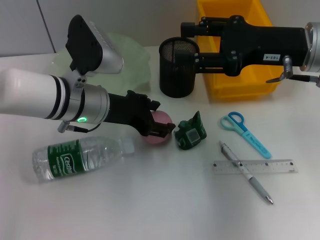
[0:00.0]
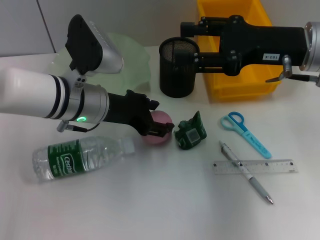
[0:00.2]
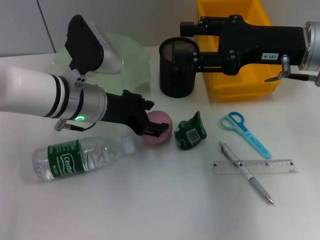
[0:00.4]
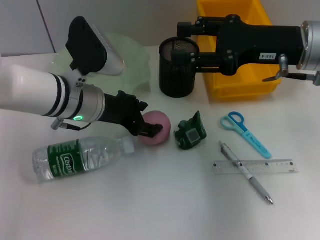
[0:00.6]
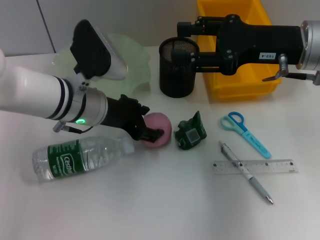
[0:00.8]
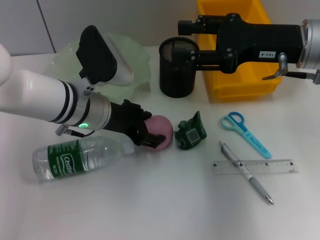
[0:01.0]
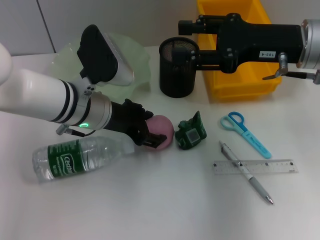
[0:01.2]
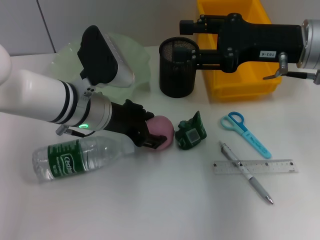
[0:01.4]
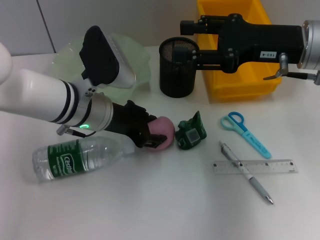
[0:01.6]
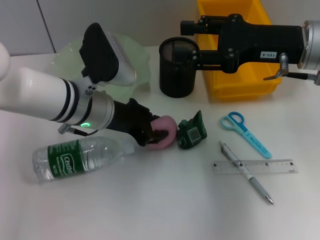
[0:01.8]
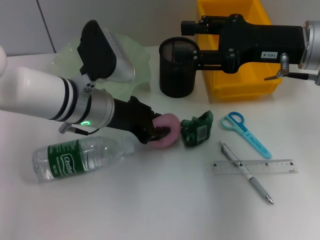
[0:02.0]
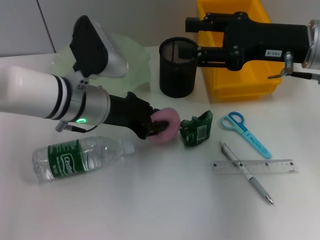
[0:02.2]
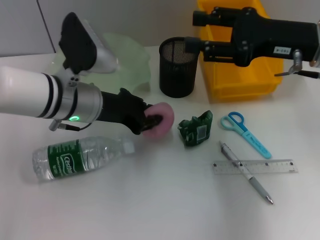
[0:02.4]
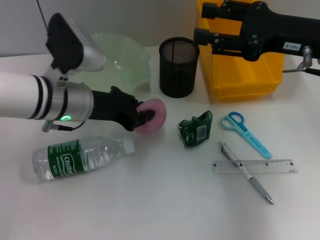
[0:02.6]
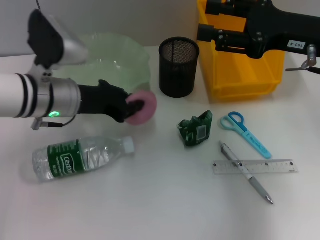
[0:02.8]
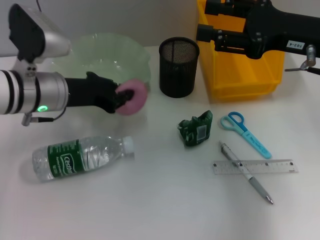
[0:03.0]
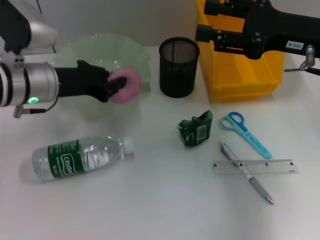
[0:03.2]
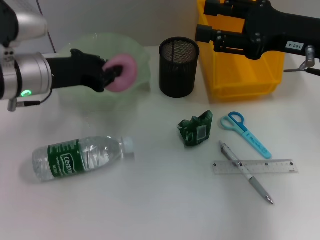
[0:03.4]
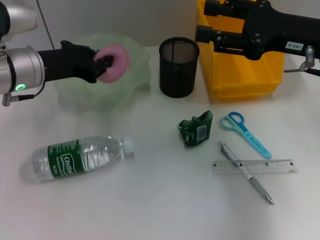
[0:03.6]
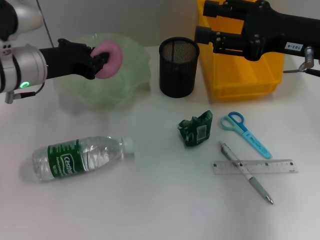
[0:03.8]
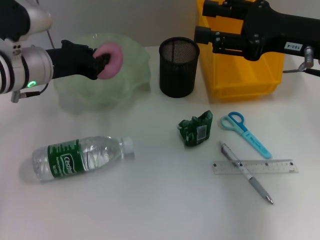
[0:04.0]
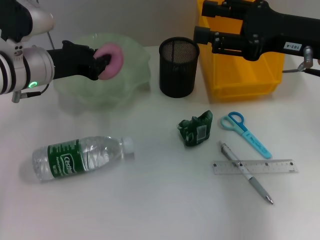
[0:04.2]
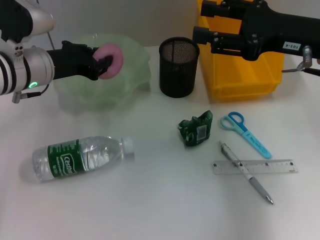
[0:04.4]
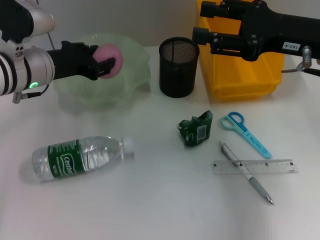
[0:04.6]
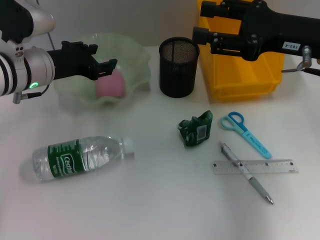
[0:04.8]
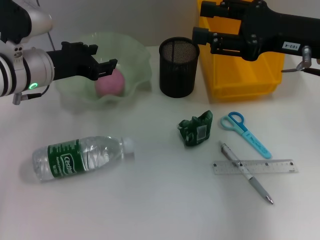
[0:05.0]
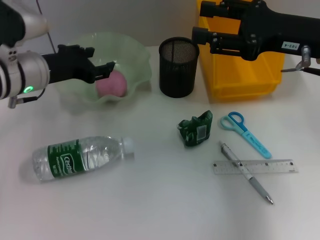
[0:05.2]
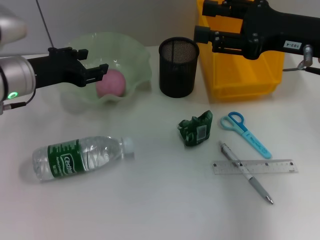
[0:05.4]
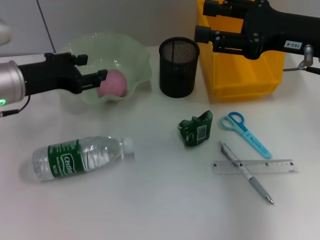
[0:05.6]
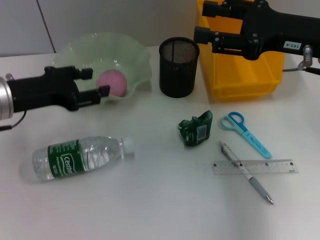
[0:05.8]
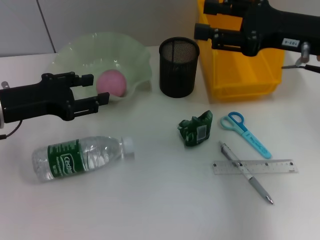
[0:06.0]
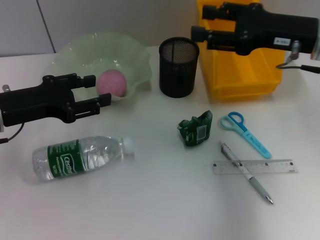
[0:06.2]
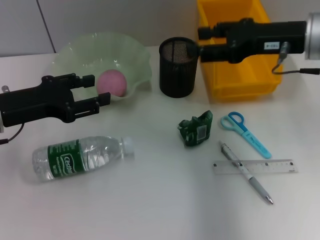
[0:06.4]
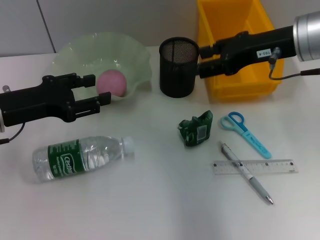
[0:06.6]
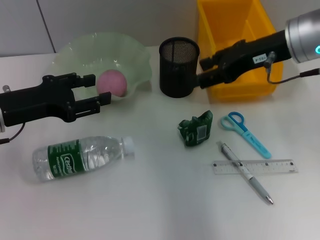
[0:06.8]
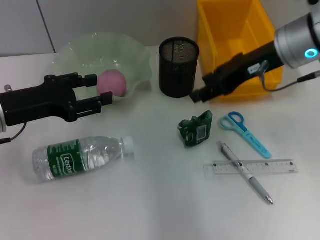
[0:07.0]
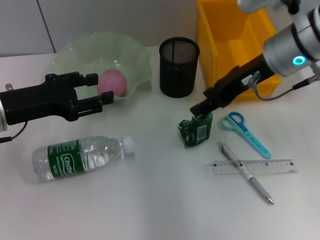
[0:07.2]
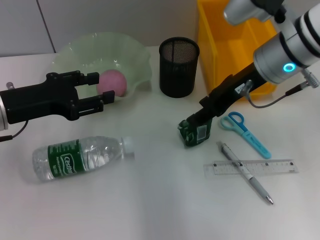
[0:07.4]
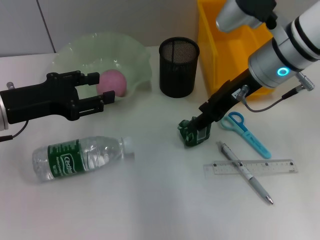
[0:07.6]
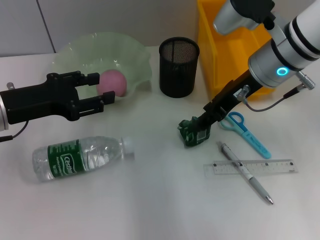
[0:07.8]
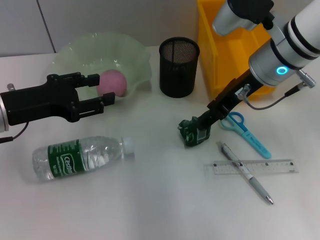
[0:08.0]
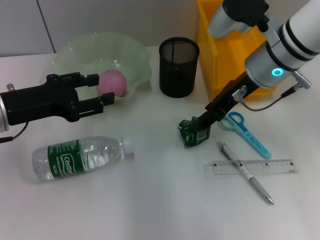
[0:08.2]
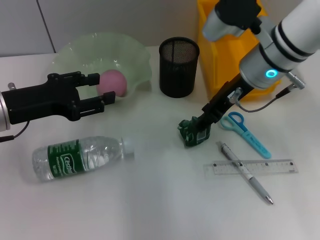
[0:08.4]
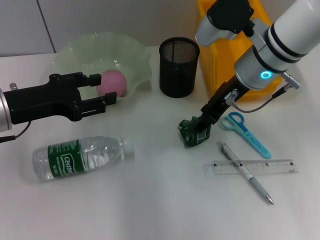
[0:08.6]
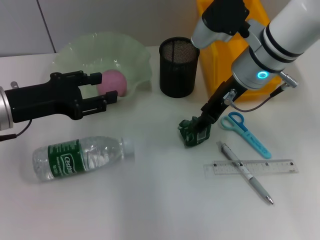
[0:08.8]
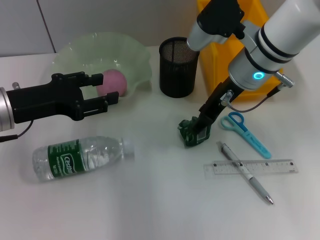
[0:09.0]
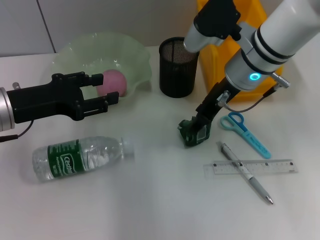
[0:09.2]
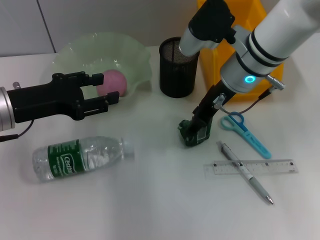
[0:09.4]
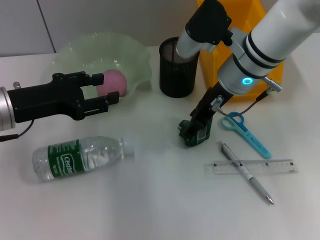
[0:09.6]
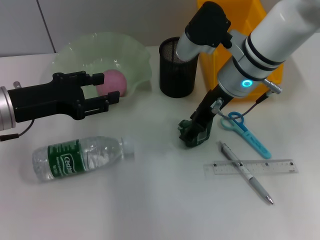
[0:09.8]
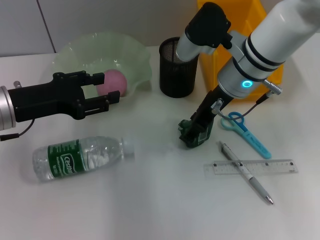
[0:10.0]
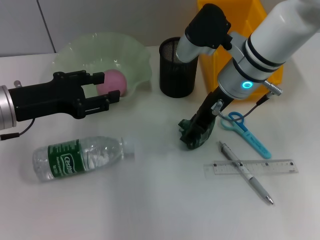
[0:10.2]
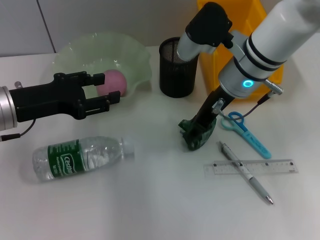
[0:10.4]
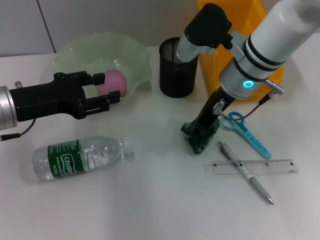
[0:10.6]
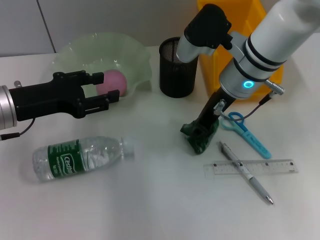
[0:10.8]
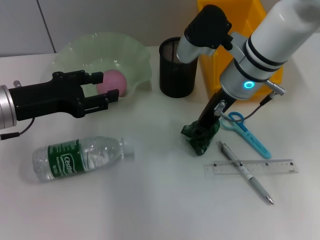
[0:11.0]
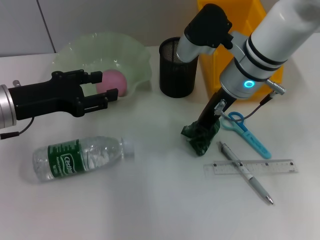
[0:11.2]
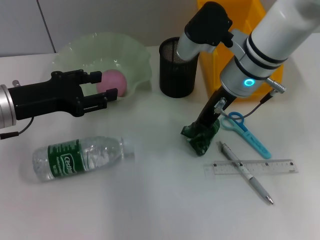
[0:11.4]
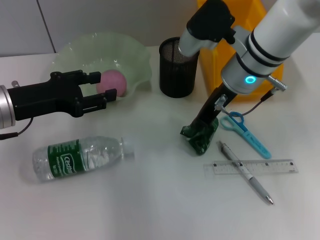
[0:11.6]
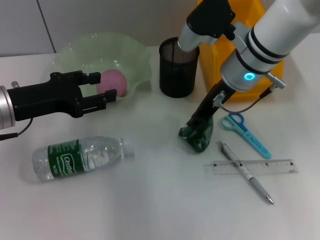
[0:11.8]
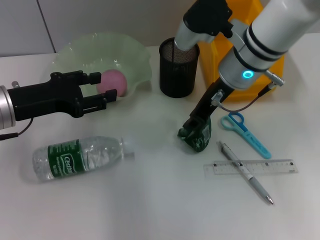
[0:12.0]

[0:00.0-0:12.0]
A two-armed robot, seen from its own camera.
Step, 0:02.0 to 0:05.0: Place the peach into the fruit bowl with the left hand.
0:00.0 to 0:01.6: There are only small adjustments of the grippers.
0:01.6 to 0:03.0: The left gripper goes approximately 5 cm to the left, and closes its fingers.
0:03.0 to 0:04.4: The grippers stay close to where they were, moving slightly.
0:04.4 to 0:06.0: The left gripper shifts approximately 10 cm backward and to the left, and opens its fingers.
0:06.0 to 0:07.6: The right gripper is displaced to the left by some 10 cm.
0:07.6 to 0:10.4: There are only small adjustments of the grippers.
0:10.4 to 0:12.0: The right gripper closes its fingers.

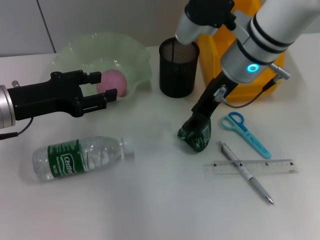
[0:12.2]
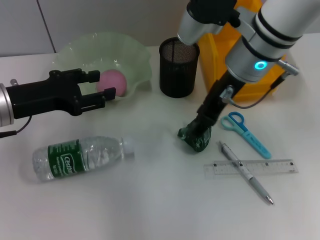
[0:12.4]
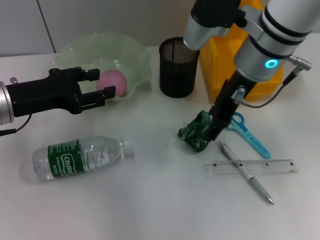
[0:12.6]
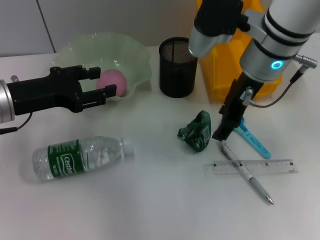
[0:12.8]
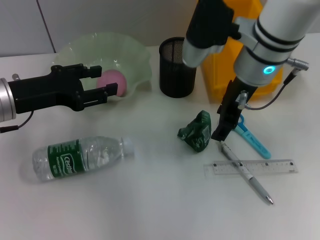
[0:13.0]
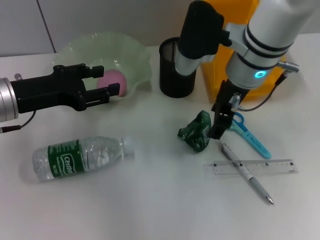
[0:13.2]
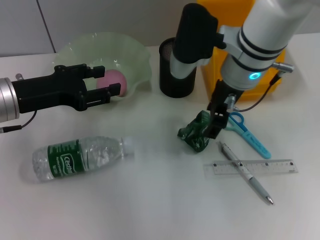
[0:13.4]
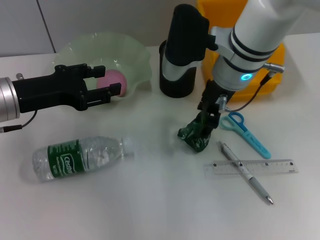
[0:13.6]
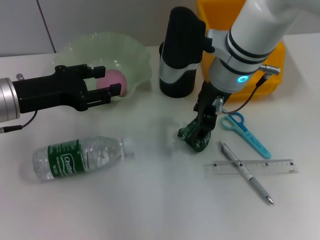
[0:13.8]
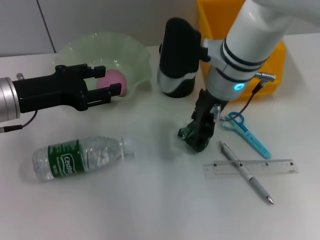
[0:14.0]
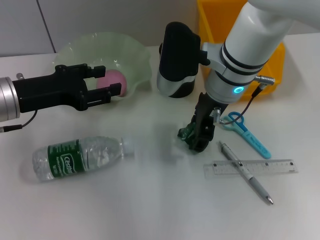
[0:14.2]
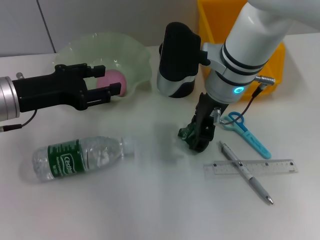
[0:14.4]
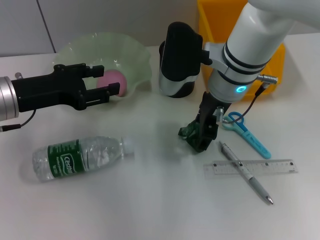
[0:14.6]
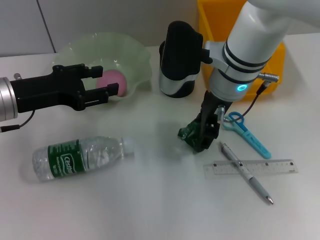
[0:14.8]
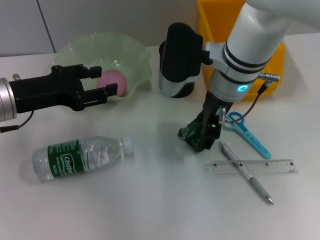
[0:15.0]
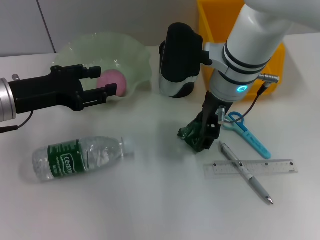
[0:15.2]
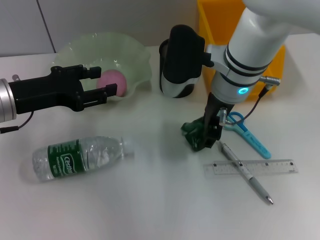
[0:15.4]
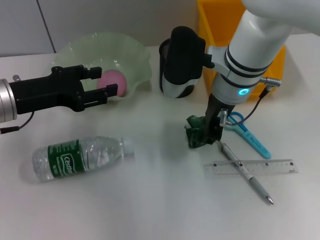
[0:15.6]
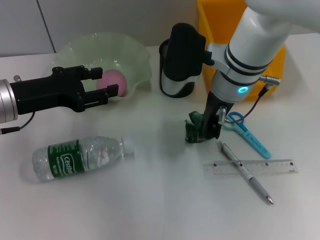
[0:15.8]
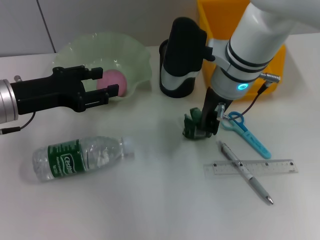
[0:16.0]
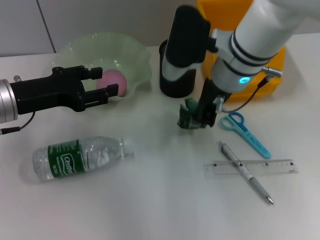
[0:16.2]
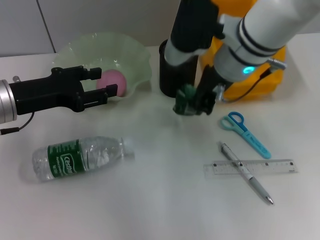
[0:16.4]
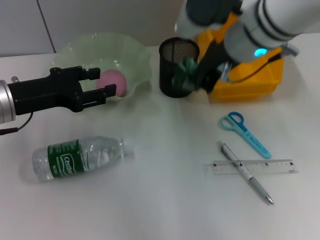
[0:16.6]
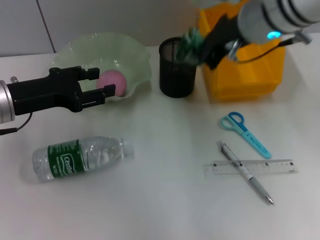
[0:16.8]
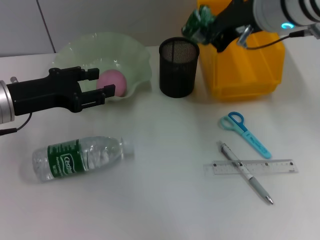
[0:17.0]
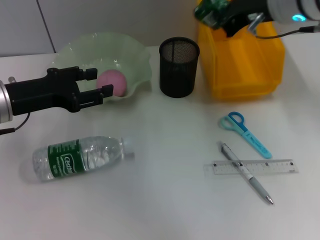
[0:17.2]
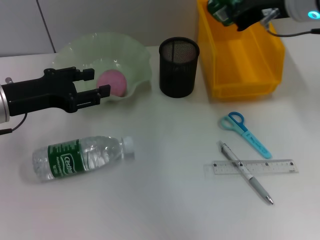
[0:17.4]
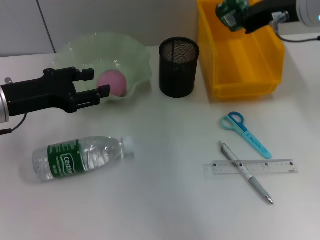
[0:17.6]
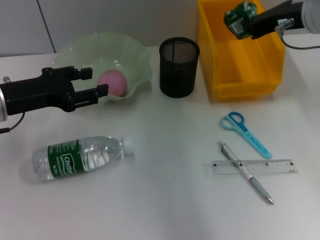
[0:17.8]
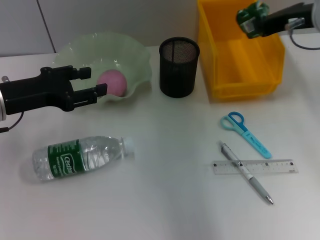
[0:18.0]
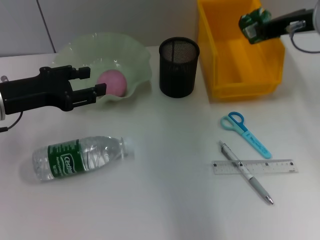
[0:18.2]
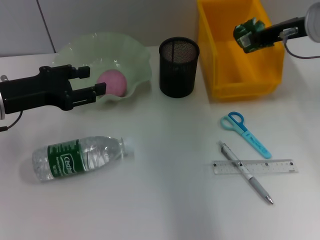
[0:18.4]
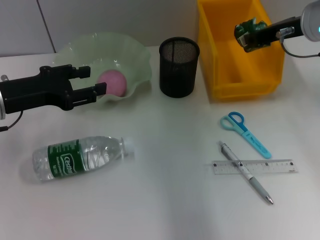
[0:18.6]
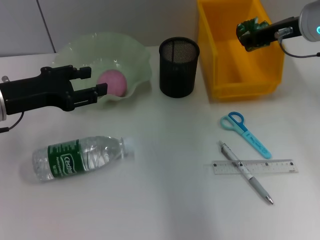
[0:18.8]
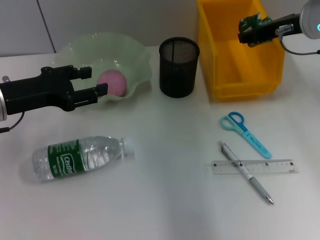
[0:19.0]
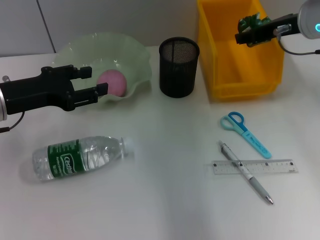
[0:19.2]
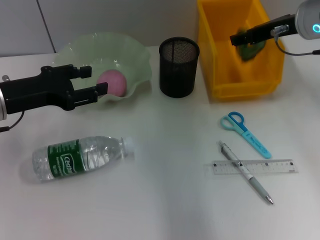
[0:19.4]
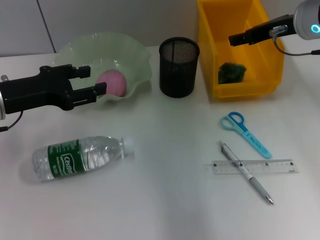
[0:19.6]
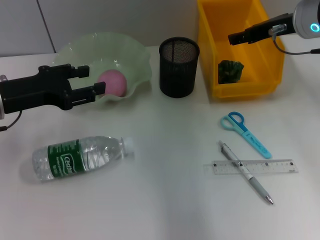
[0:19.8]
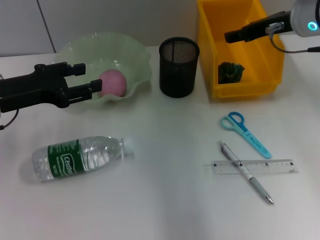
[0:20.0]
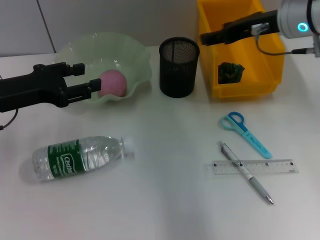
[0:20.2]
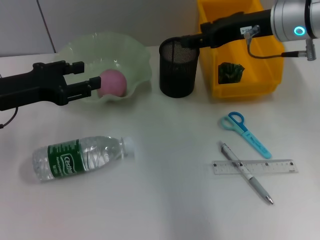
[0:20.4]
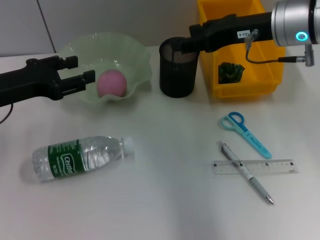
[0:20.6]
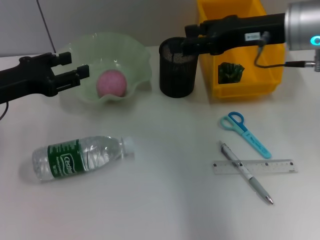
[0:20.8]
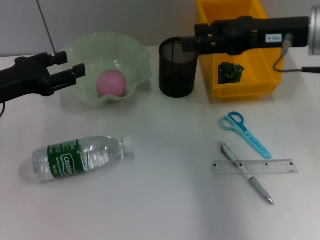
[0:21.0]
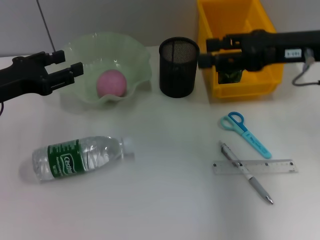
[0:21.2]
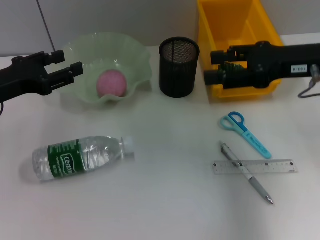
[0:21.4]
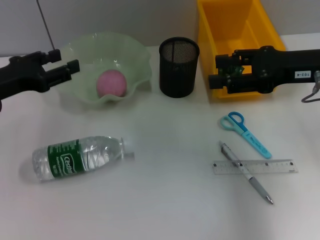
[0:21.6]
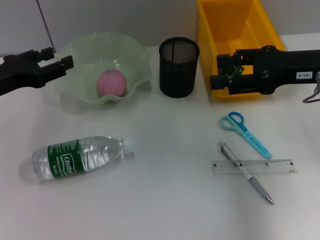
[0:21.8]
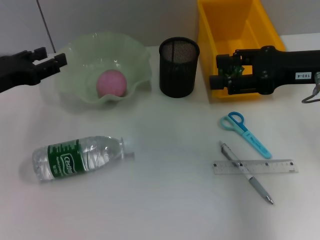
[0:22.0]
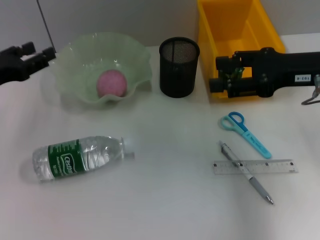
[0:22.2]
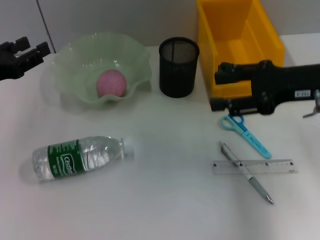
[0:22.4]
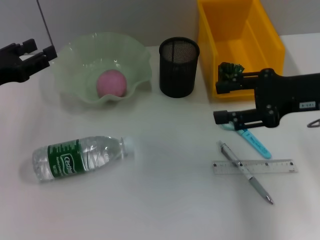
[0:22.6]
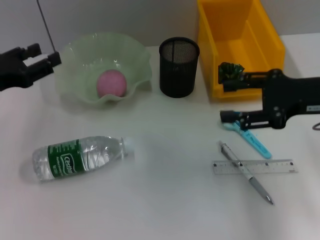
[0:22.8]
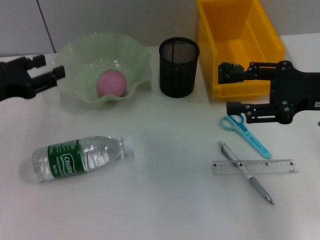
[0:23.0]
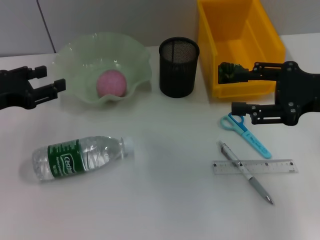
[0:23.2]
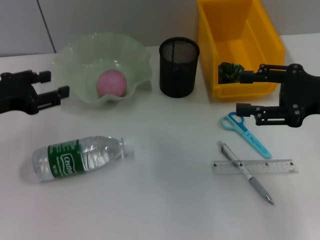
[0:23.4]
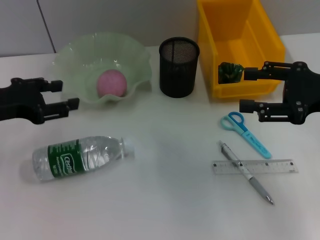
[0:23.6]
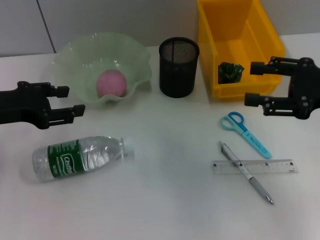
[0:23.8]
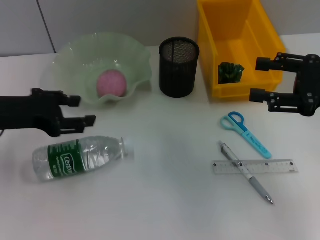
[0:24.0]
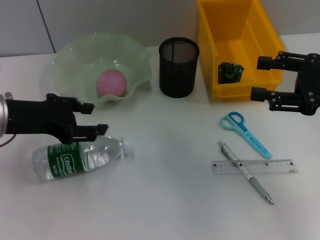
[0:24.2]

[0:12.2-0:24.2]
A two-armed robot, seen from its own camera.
Step, 0:12.2 to 0:15.6: Grab the plastic with the right hand.
Step, 0:16.0 to 0:19.6: Place the plastic into the trash can with the right hand.
0:12.2 to 0:13.8: The right gripper opens.
0:13.8 to 0:15.2: The grippers stay close to where they were, moving slightly.
0:15.2 to 0:16.6: The right gripper shifts roughly 5 cm upward, and closes.
0:16.6 to 0:18.2: The right gripper shifts roughly 15 cm to the right.
0:18.2 to 0:19.8: The right gripper opens.
0:19.8 to 0:21.2: The right gripper travels backward by approximately 5 cm.
0:21.2 to 0:22.6: The grippers move only a little.
0:22.6 to 0:24.2: The left gripper is displaced to the right by roughly 5 cm. Meanwhile the right gripper ends up some 5 cm from where it was.
